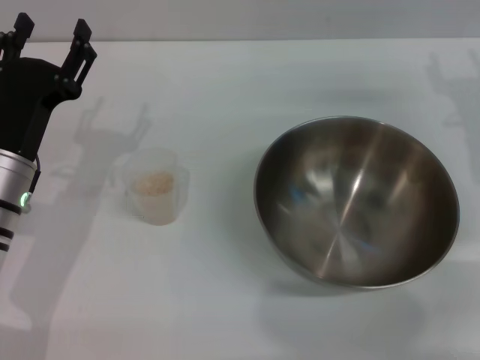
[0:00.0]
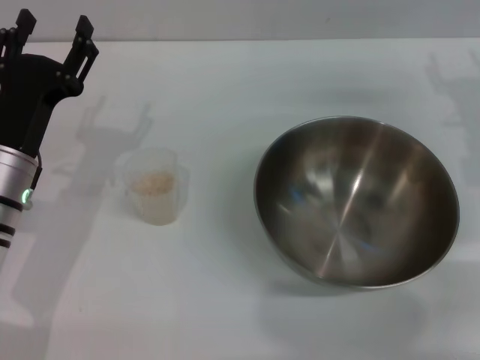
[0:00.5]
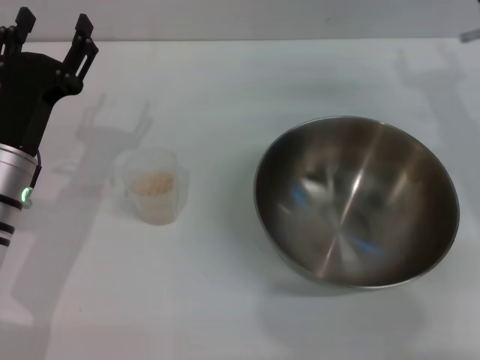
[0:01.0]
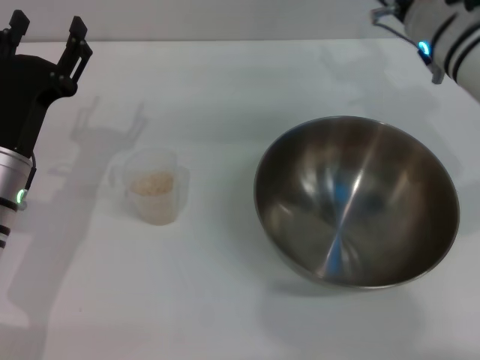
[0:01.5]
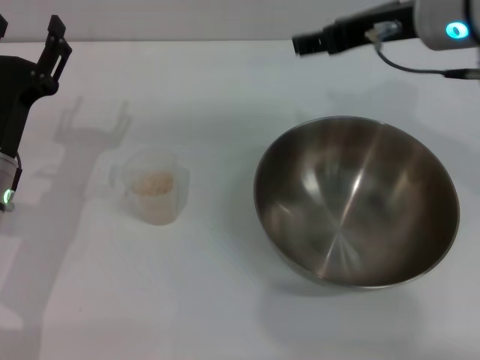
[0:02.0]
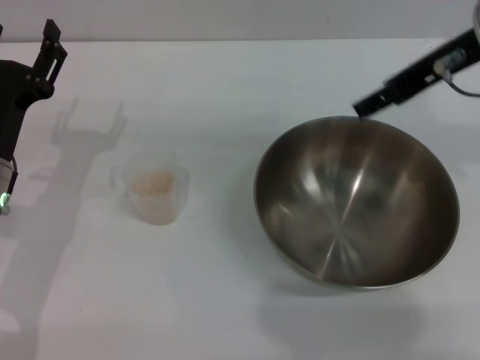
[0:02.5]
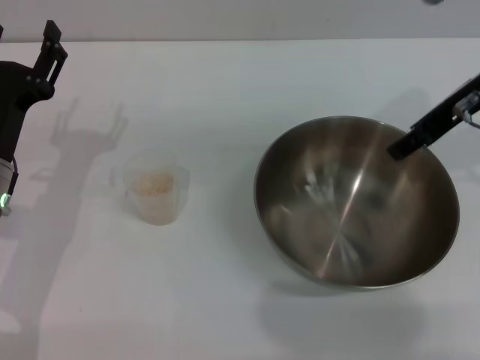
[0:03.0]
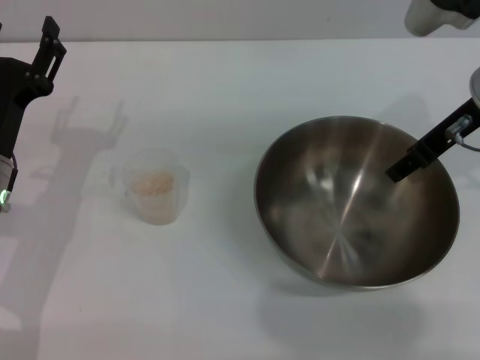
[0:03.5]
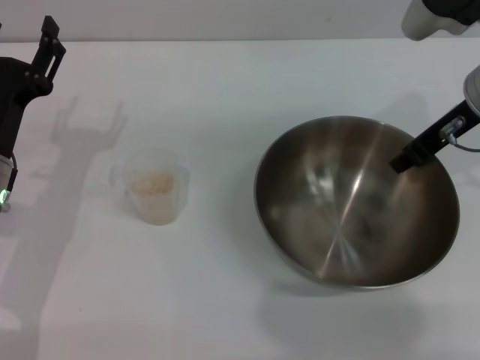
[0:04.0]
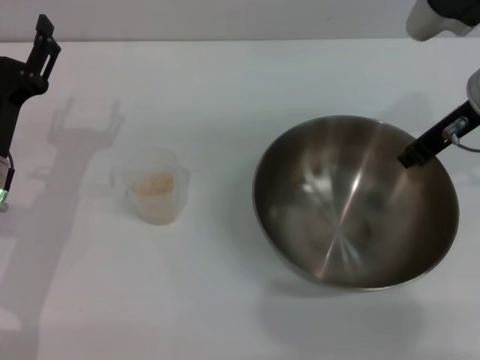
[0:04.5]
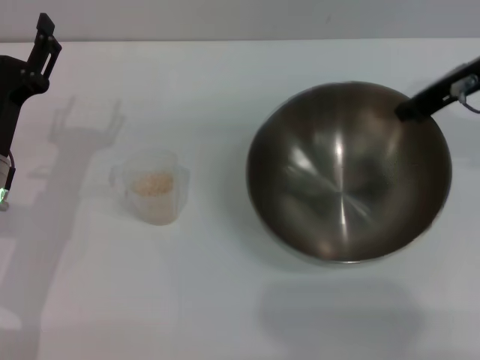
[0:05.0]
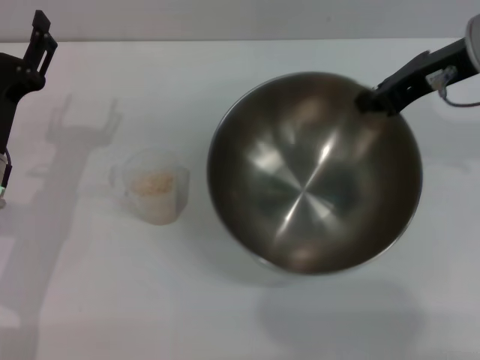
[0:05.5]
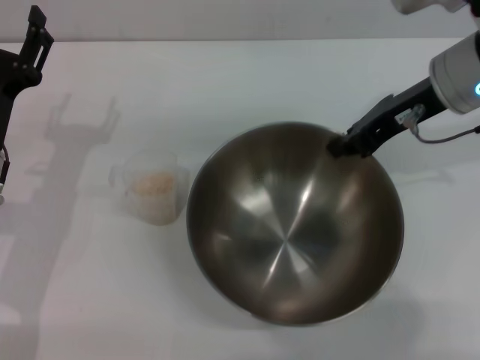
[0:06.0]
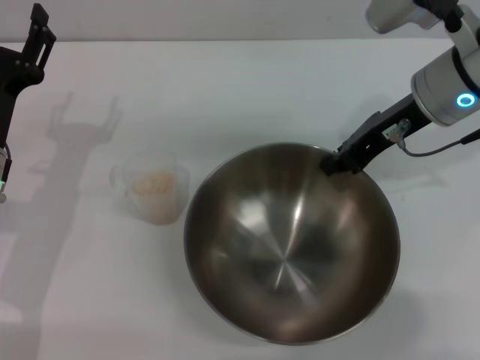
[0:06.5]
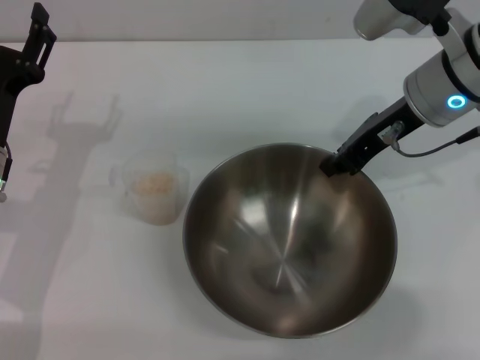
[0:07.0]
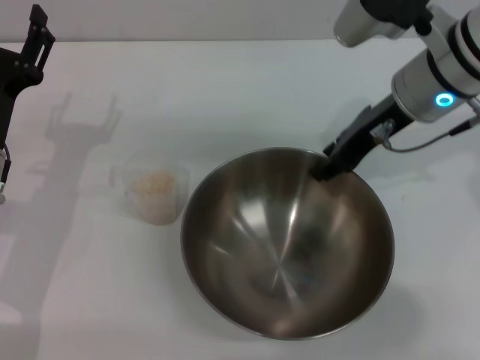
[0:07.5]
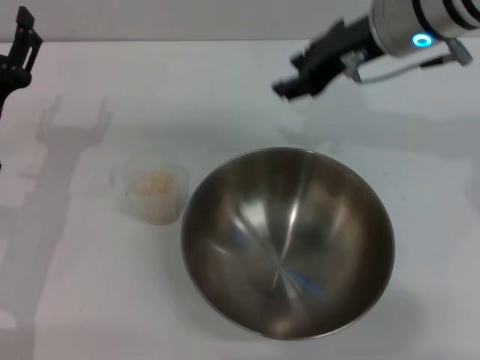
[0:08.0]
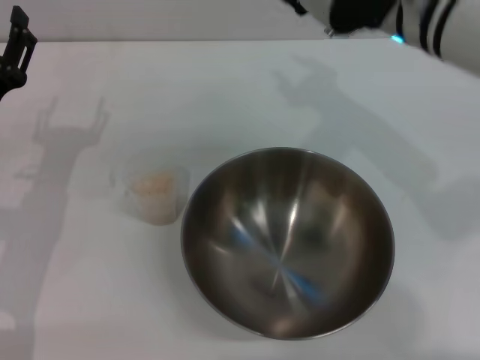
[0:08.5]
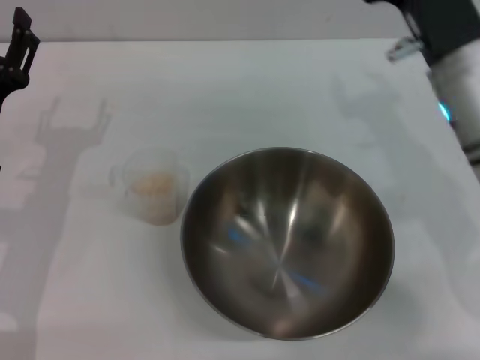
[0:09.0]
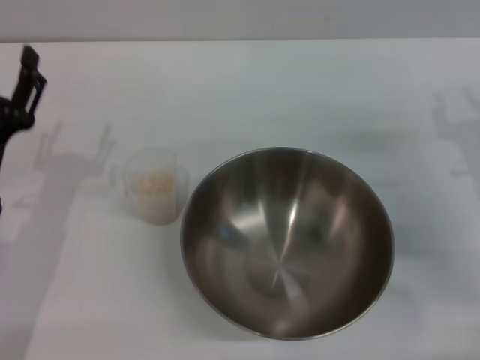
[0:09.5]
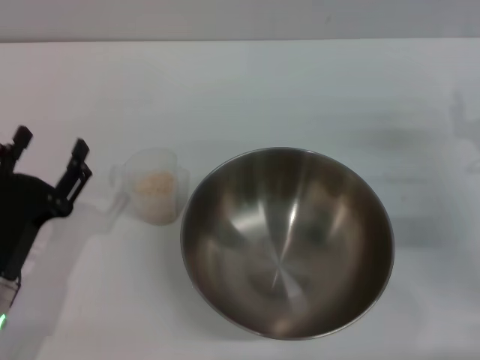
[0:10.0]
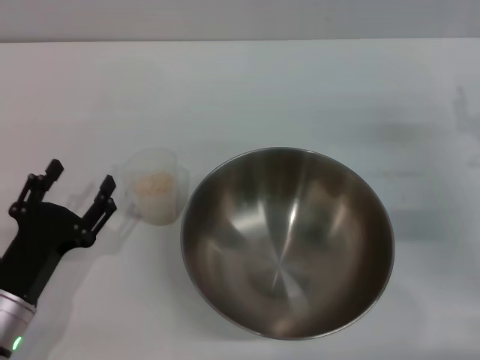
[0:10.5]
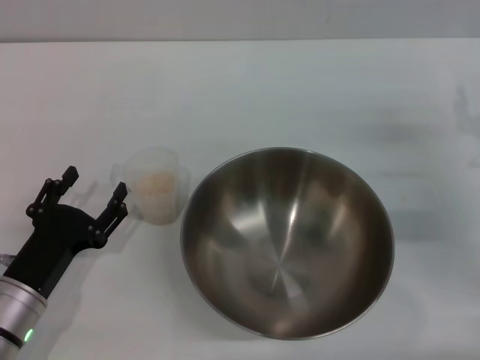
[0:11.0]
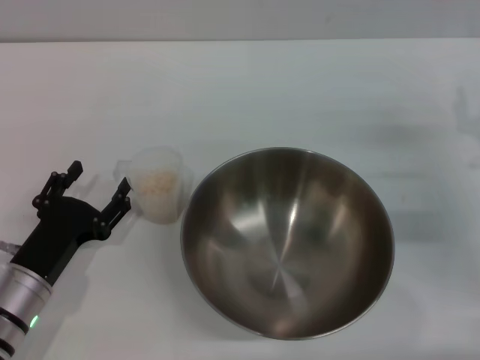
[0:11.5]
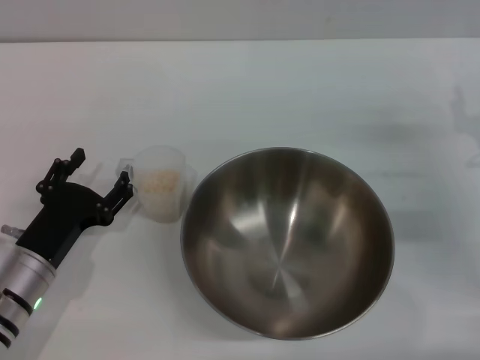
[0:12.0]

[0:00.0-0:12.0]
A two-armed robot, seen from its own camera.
Task of the whole recording: Place the bowl in the middle of the table with one hand and pour the rice from the grain cup into it with the other hand.
Step, 0:00.0 to 0:05.0: Pick up the bowl with the right gripper.
Step, 0:05.5 to 0:08.0: Place the bowl in the center of view with the right gripper.
0:00.0 to 0:02.0: The right gripper goes roughly 20 cm upward and to the left.
0:02.0 to 0:04.0: The right gripper heads downward and to the right, covering about 10 cm.
0:04.0 to 0:06.0: The right gripper closes its fingers.
0:06.0 to 0:08.0: The right gripper moves to the left, some 5 cm, and opens.
0:08.0 to 0:10.0: The right gripper heads downward, to the right and backward, covering approximately 25 cm; the left gripper travels backward by roughly 10 cm.
0:10.0 to 0:12.0: The grippers stay close to where they were, moving slightly.

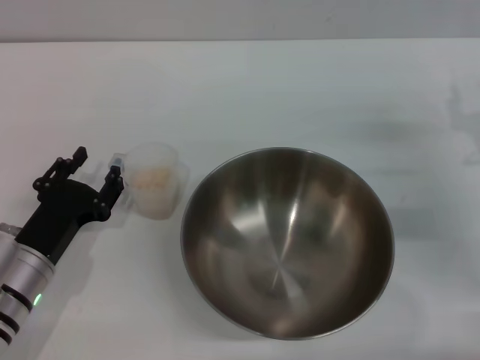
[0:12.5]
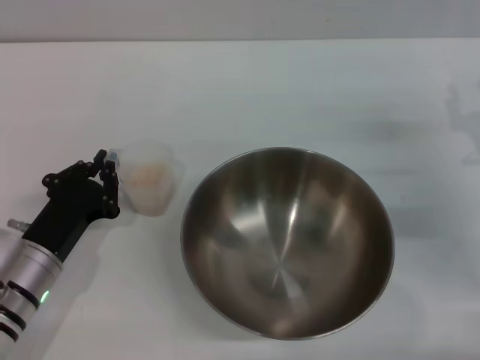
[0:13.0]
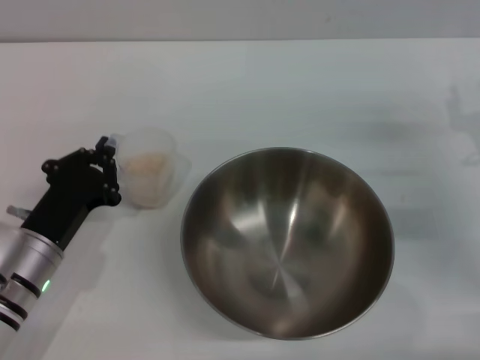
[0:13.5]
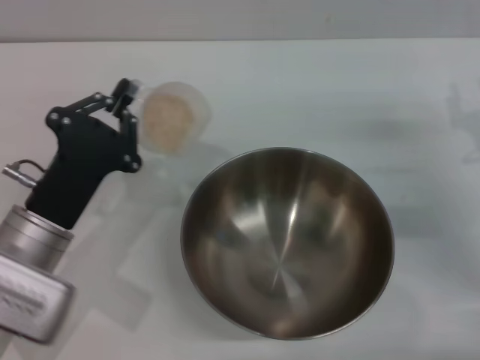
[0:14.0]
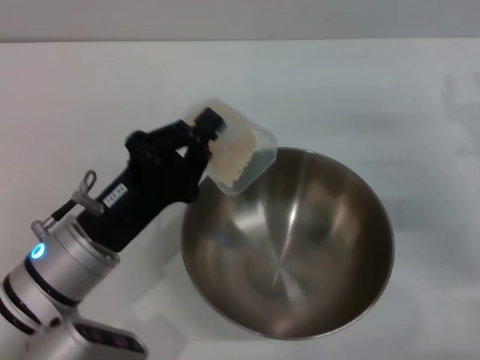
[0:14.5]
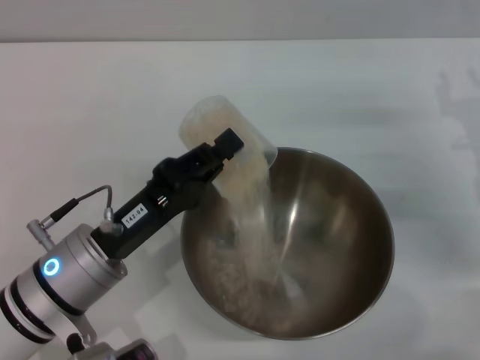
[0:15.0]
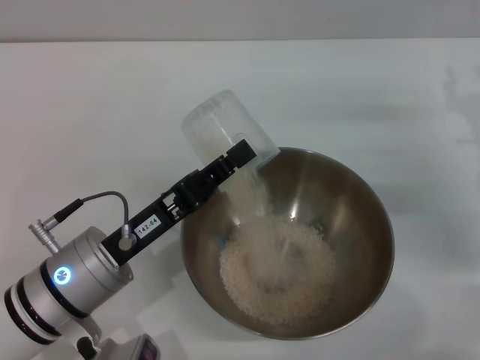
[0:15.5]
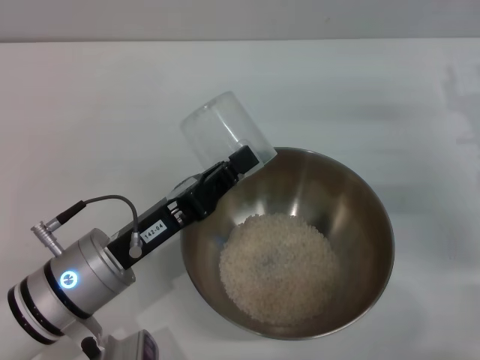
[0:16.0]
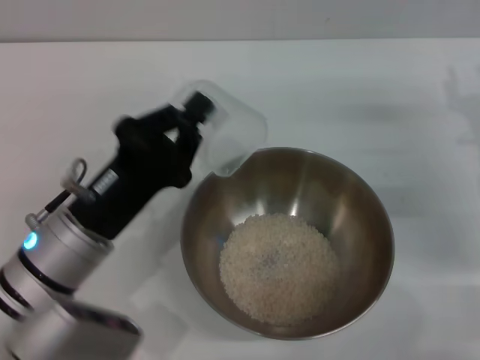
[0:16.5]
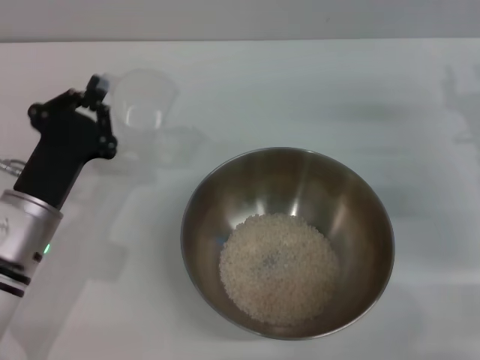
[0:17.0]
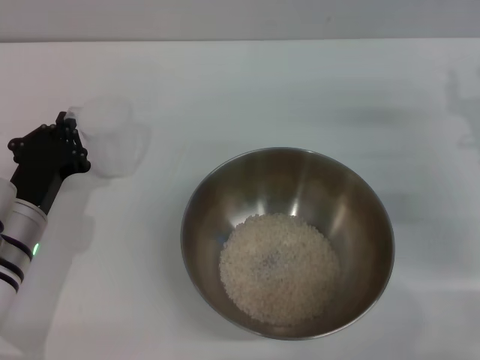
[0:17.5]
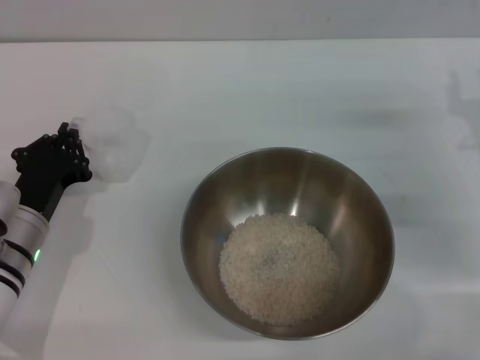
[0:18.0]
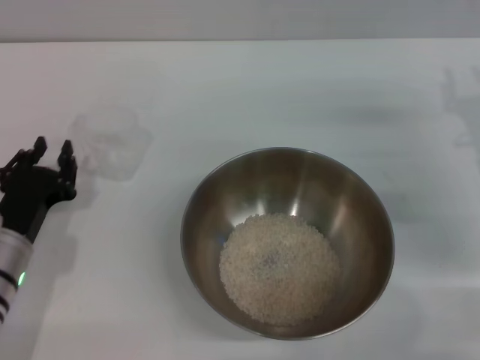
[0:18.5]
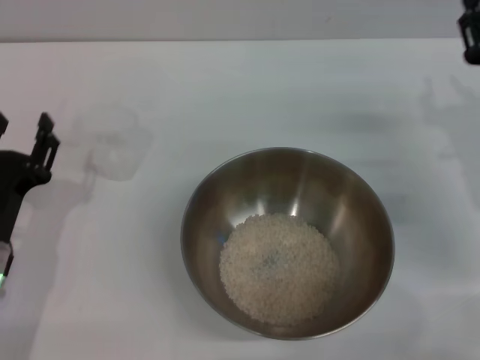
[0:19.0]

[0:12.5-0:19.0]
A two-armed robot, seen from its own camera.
Task of the whole recording: Place the bowl in the middle of the table with one hand and pour the rice from the grain cup into it with the other hand.
Step, 0:14.0 to 0:16.5: Pour the rice from the cup into the bowl with the left gripper.
Step, 0:17.0 to 0:18.5: Place the cup on the table with the left gripper.
0:12.5 to 0:14.5: The left gripper heads to the right and upward, covering some 10 cm, and closes its fingers.
0:14.5 to 0:17.0: The left gripper ends up about 5 cm from where it was.
0:17.0 to 0:19.0: The left gripper ends up approximately 5 cm from where it was, and opens.

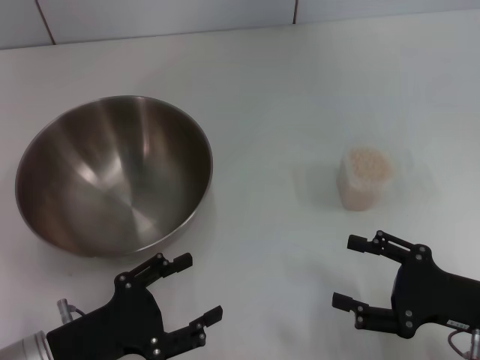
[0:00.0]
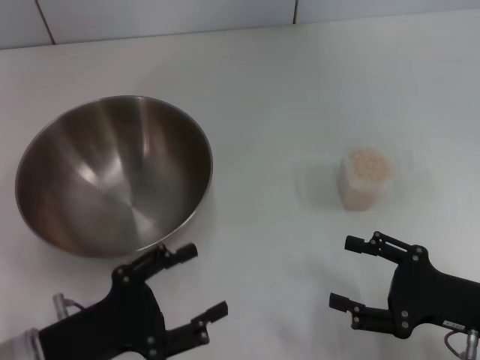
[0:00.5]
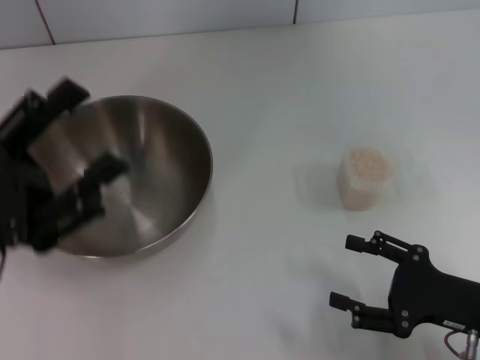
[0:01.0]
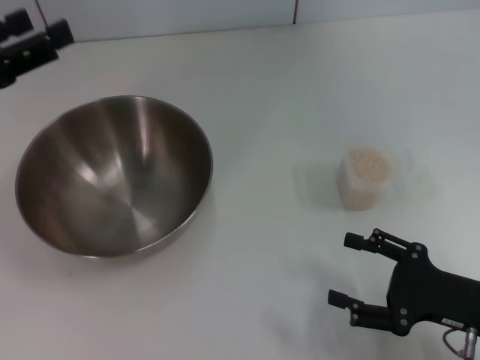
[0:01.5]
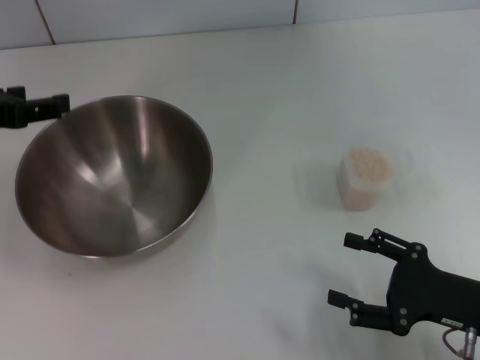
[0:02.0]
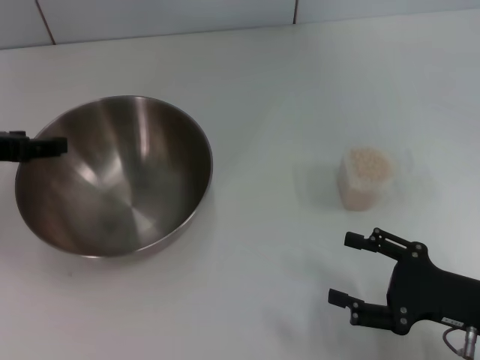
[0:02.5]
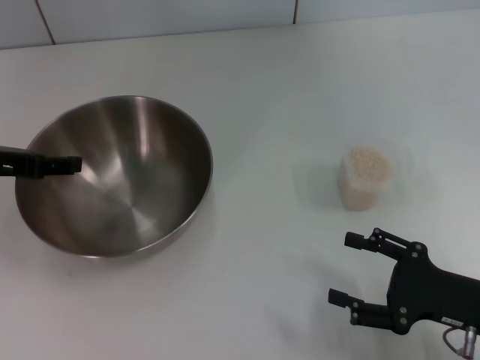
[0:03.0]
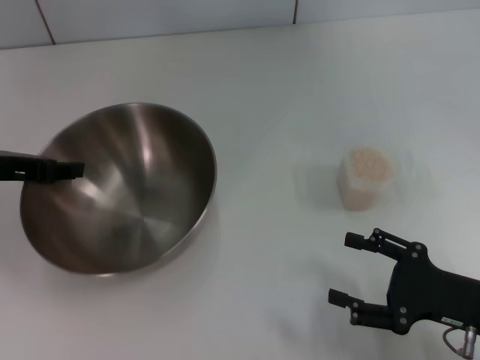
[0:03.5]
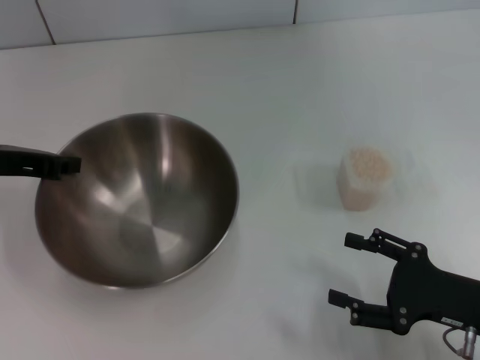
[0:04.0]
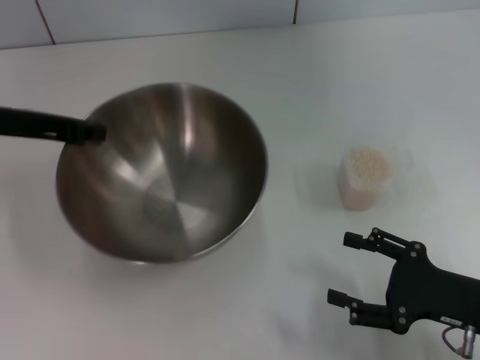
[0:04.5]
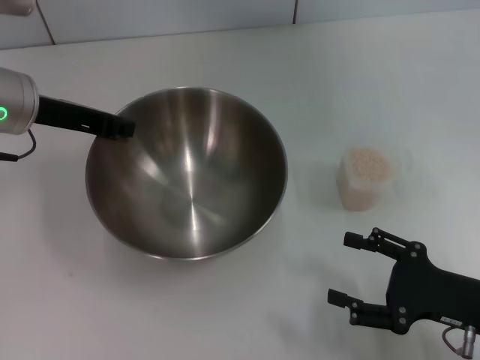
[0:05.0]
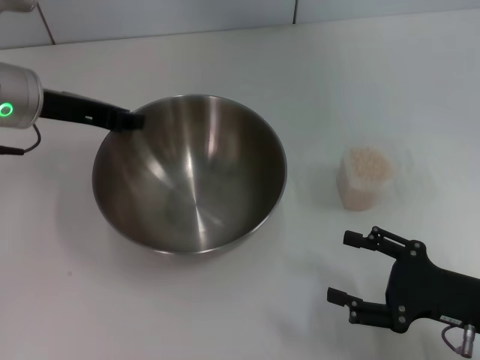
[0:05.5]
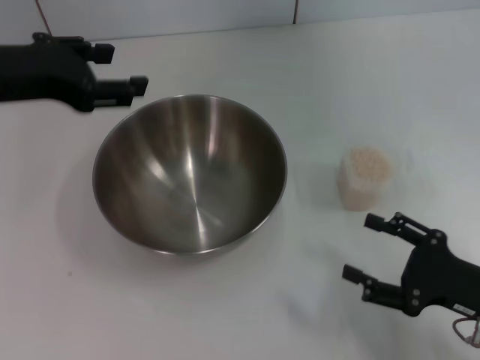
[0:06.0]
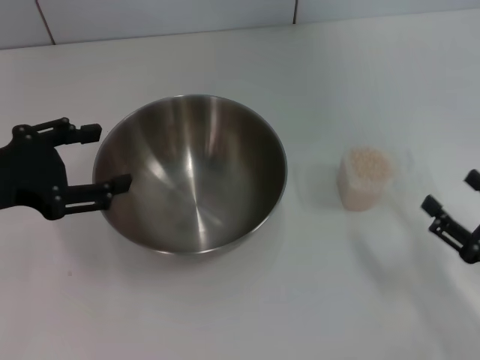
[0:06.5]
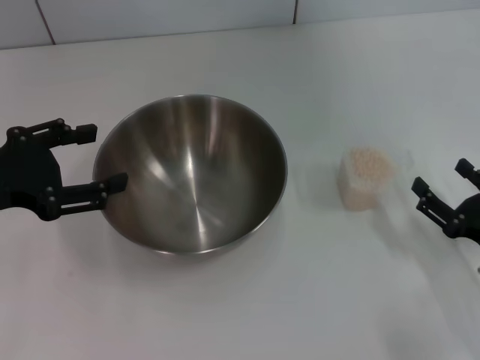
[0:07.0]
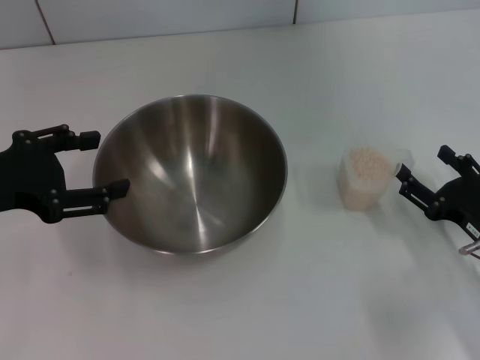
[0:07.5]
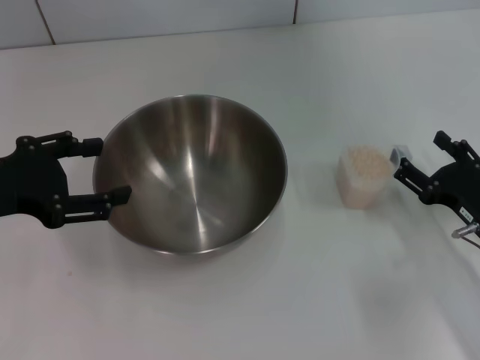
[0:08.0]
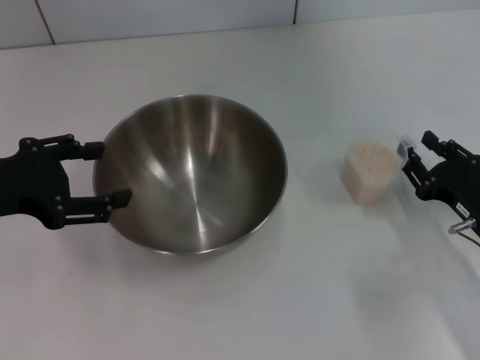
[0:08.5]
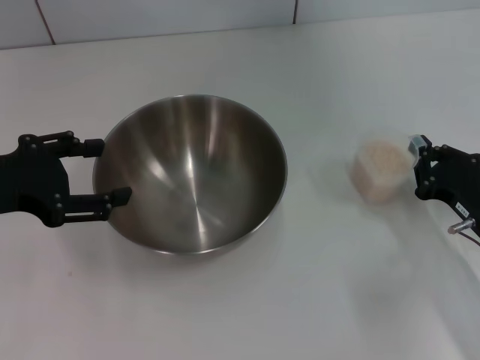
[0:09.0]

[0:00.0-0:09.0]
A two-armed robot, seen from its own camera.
Task of the whole recording: Place the bowl in the middle of the table with one hand and pour the rice from the grain cup into it with the other hand.
Step, 0:00.0 to 0:04.0: Pick up the bowl with the left gripper.
Step, 0:04.5 to 0:05.5: Place the bowl in the center of view with the left gripper.
0:00.0 to 0:02.0: The left gripper heads upward and forward, covering roughly 25 cm.
0:02.0 to 0:04.5: The left gripper ends up about 5 cm from where it was, and closes its fingers.
0:04.5 to 0:07.0: The left gripper is displaced backward by approximately 10 cm, and opens.
0:07.0 to 0:09.0: The right gripper moves some 5 cm, and closes up.
